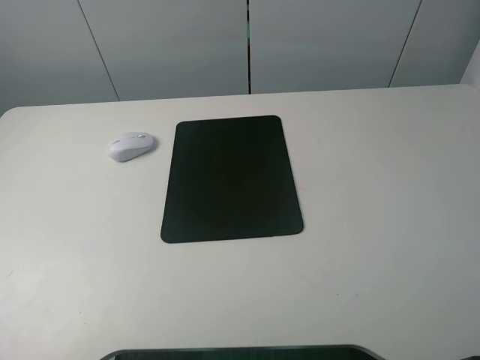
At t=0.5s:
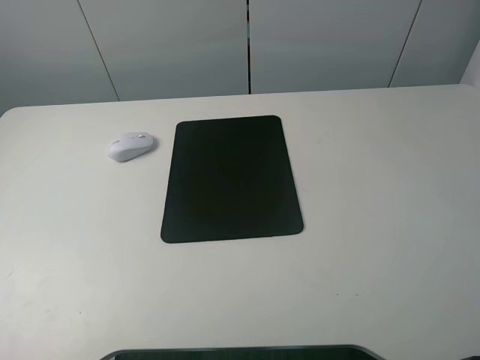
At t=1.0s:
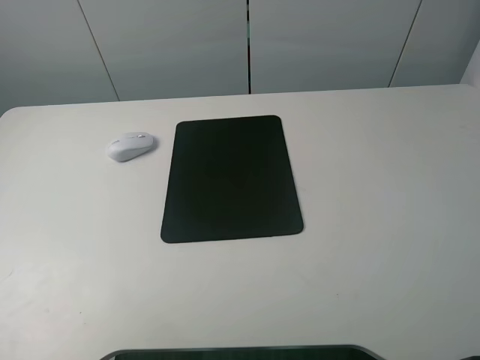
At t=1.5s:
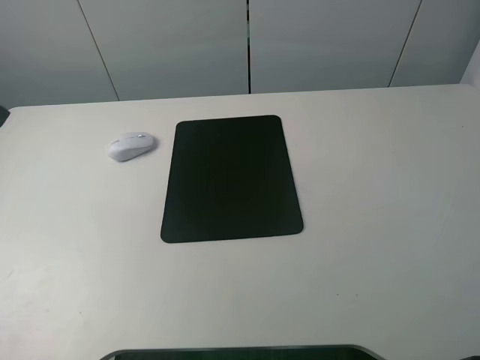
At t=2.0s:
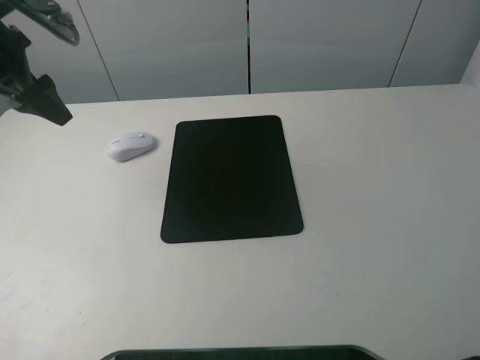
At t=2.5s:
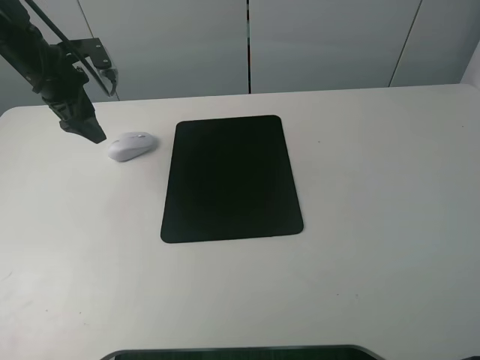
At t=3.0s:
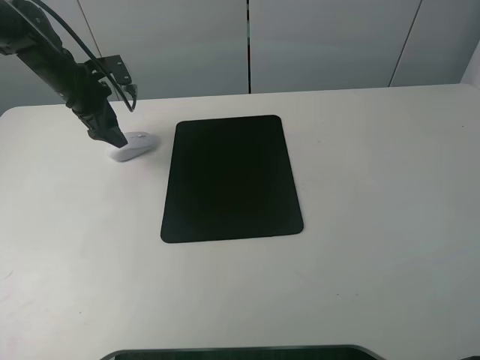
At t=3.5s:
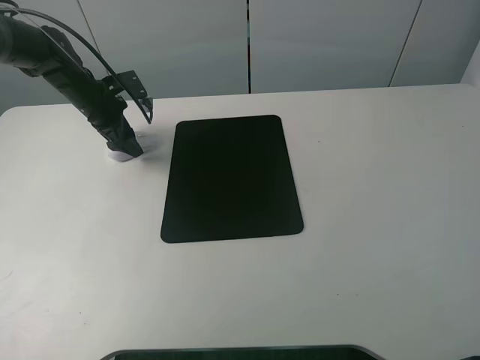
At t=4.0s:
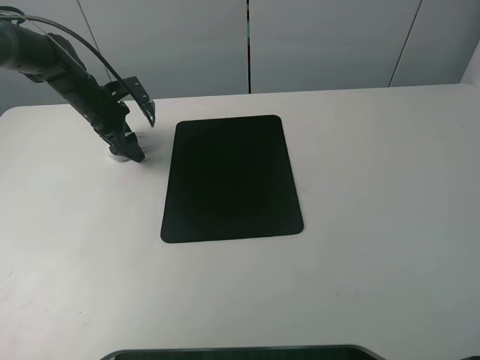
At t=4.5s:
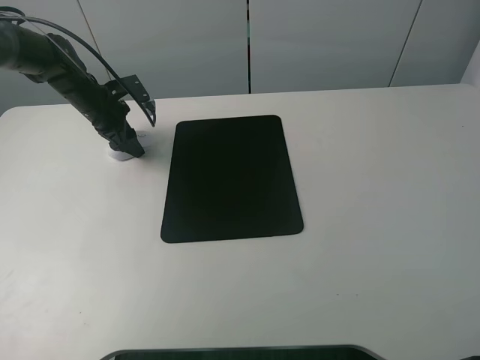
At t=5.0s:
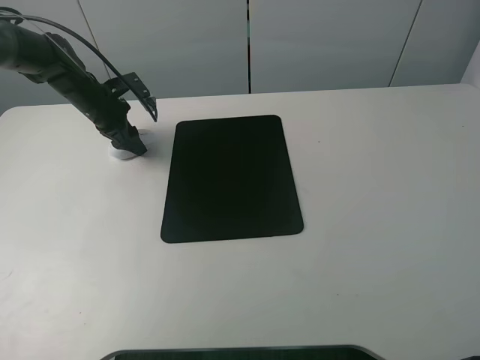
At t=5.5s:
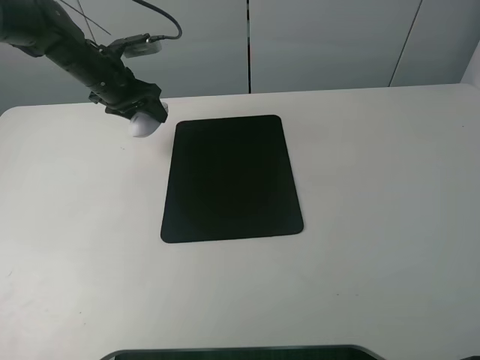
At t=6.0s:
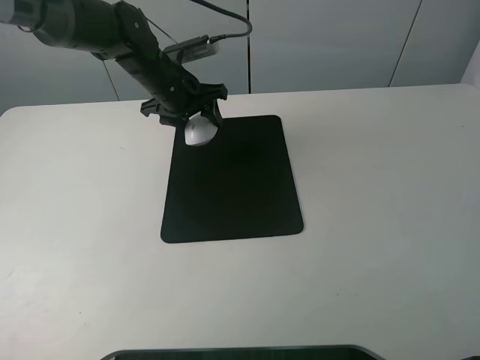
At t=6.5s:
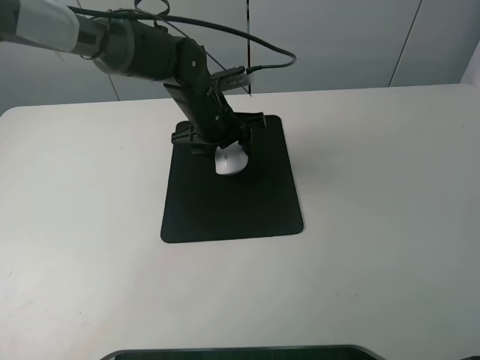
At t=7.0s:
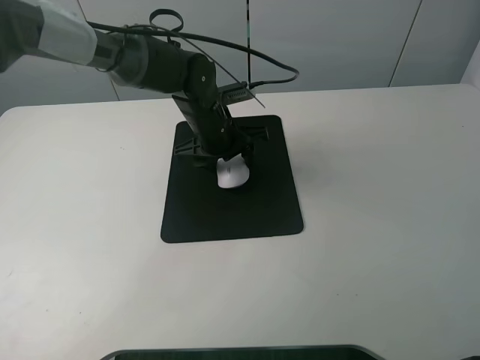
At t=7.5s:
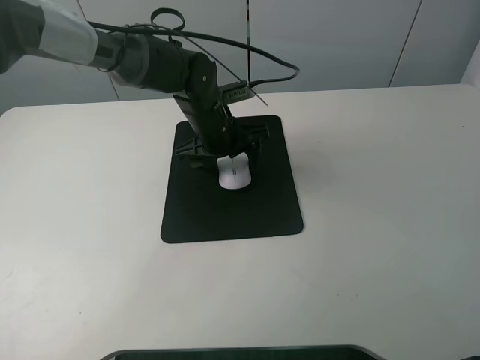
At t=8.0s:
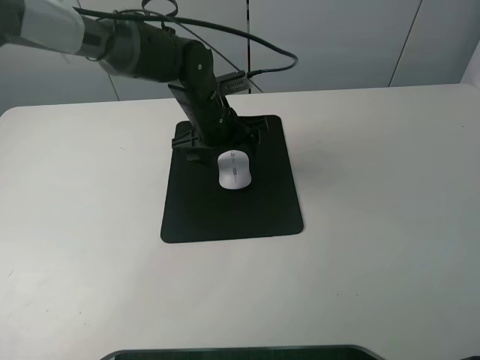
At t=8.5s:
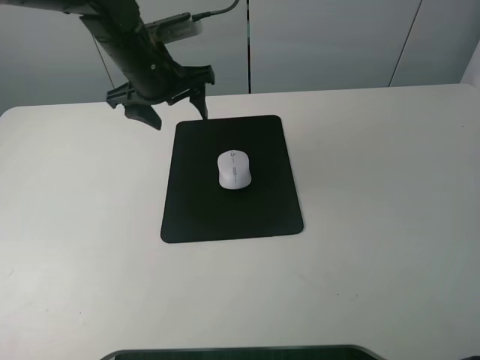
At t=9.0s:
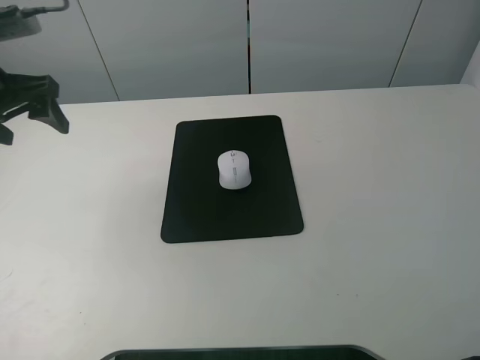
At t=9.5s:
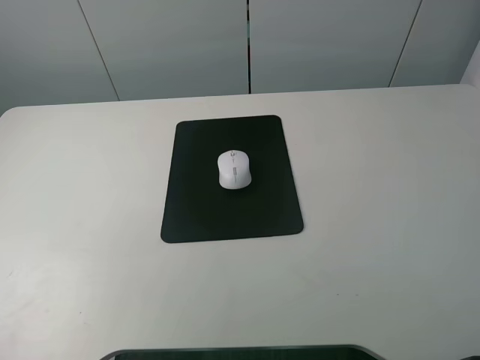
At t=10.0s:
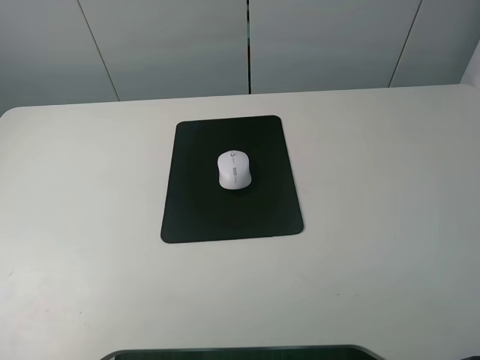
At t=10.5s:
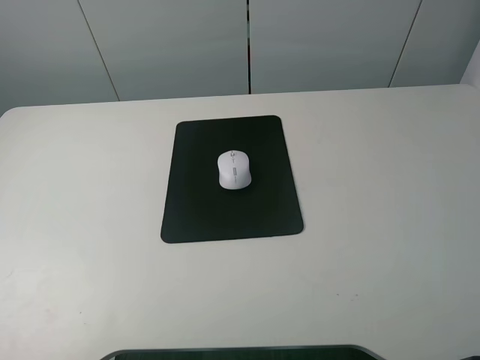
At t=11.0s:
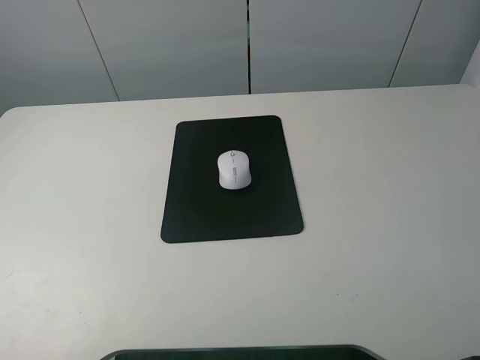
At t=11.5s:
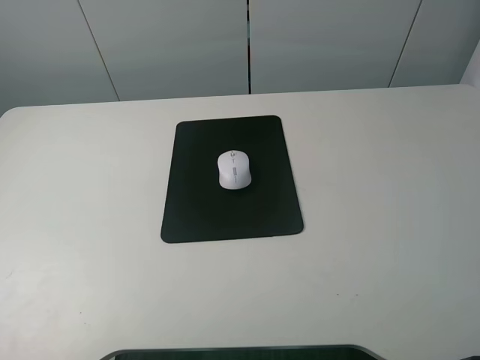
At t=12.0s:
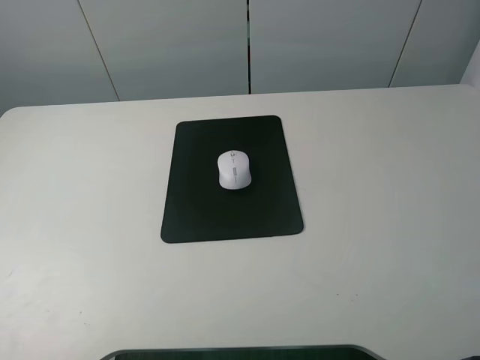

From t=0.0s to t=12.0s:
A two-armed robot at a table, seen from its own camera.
Step, from t=0.0s to t=4.0s: Grasp the mouse with the left gripper.
Step, from t=4.5s to t=7.5s: Place the mouse on the mouse mat with the left gripper.
From t=0.0s to t=2.0s: The left gripper is displaced forward by some 35 cm.
From t=2.0s to t=4.0s: The left gripper travels downward and forward by about 20 cm, and closes.
From t=4.0s to t=6.0s: The left gripper shifts some 15 cm to the right, and closes up.
From t=6.0s to t=8.0s: The left gripper moves to the right, about 5 cm, and opens its fingers.
From t=8.0s to t=10.0s: The left gripper goes approximately 50 cm backward, to the left and upward.
